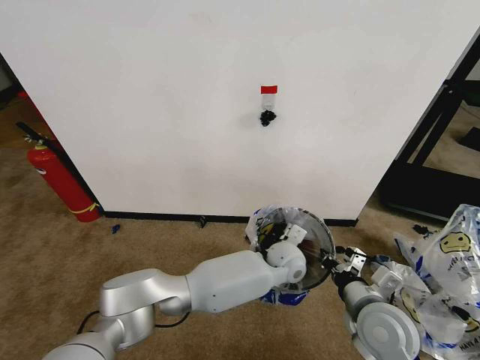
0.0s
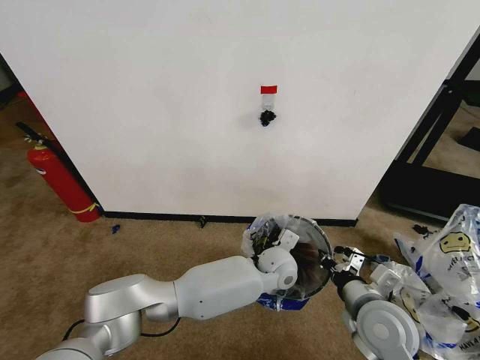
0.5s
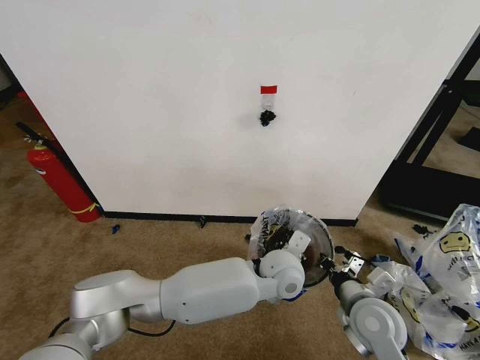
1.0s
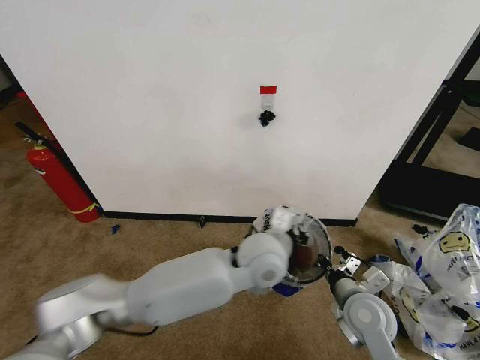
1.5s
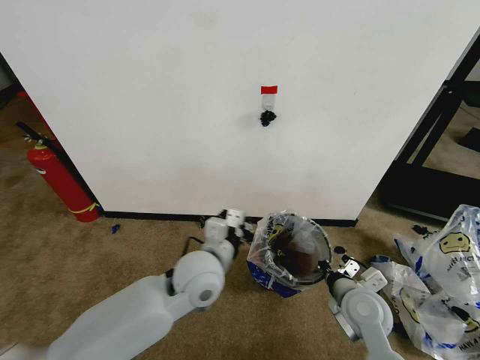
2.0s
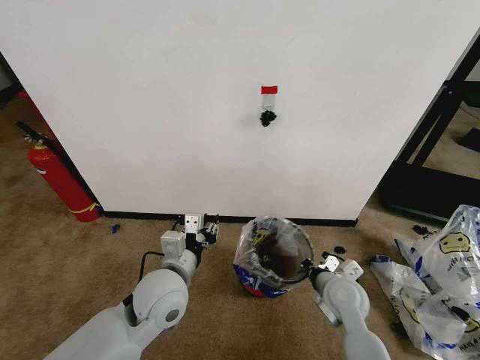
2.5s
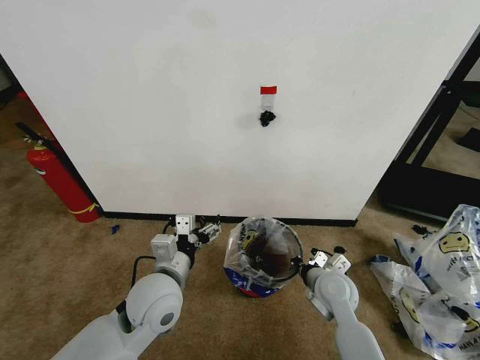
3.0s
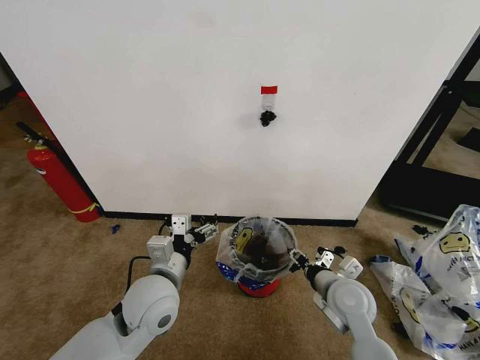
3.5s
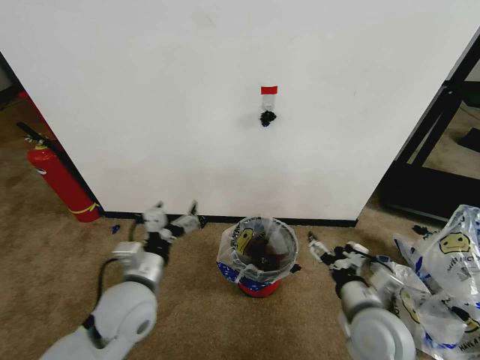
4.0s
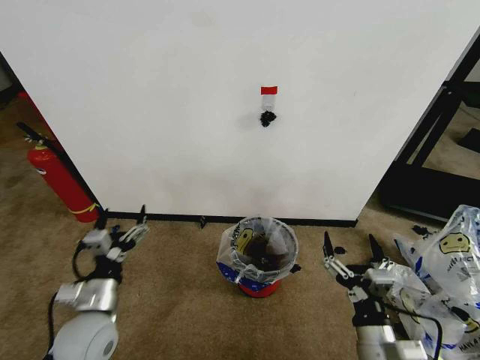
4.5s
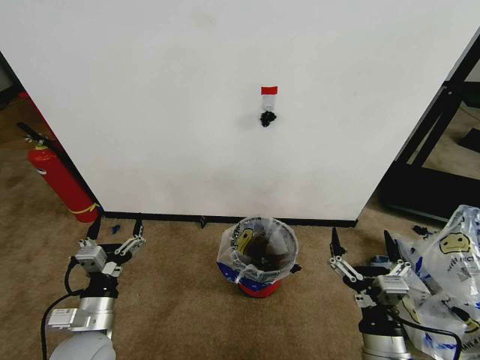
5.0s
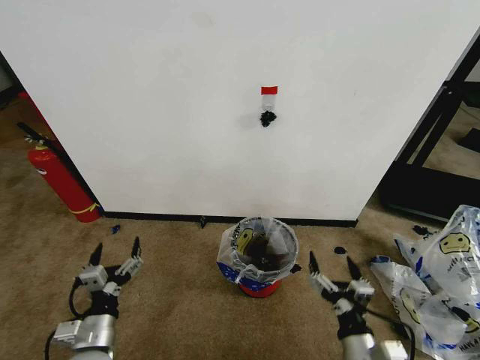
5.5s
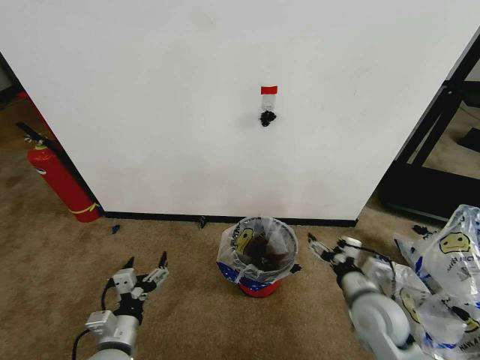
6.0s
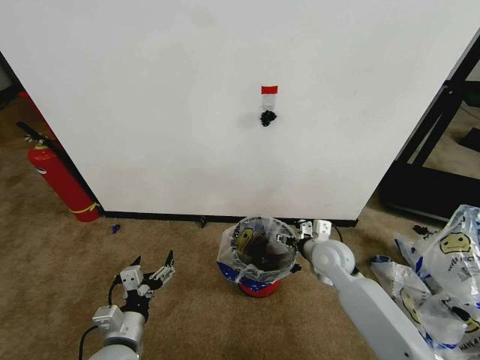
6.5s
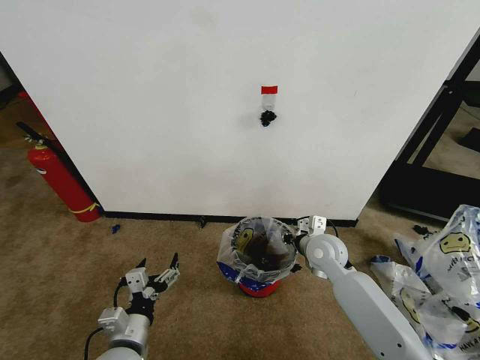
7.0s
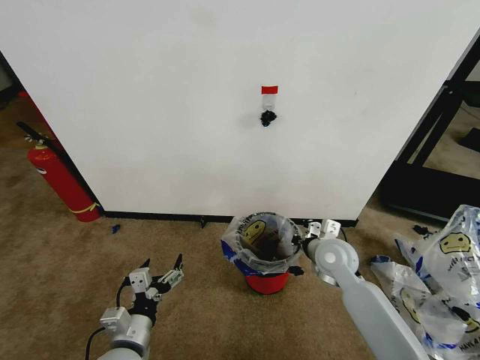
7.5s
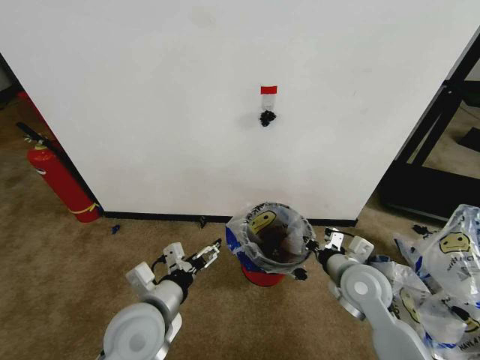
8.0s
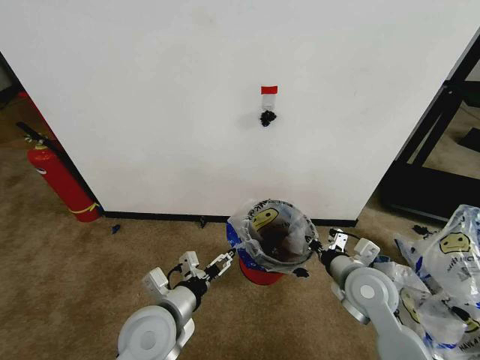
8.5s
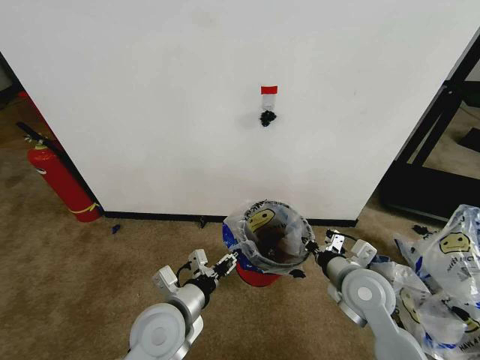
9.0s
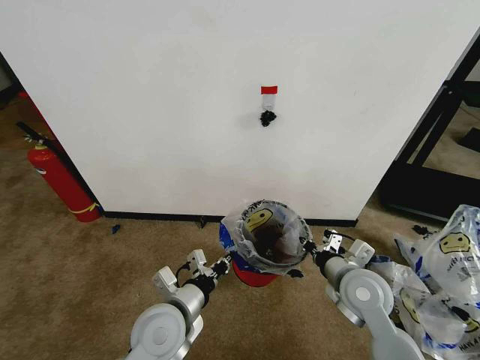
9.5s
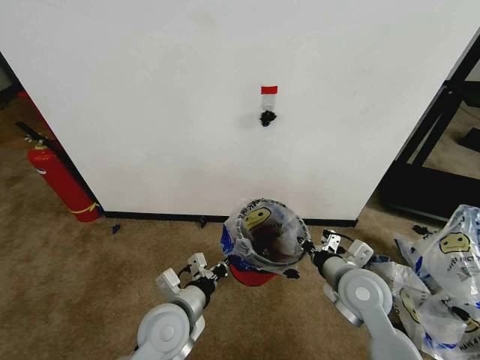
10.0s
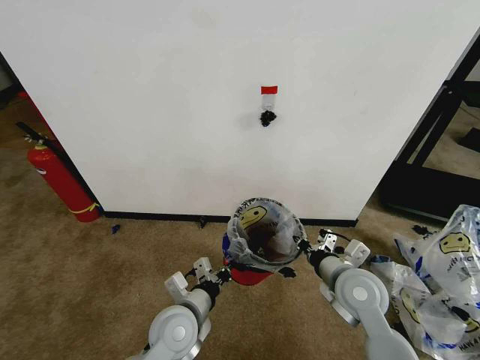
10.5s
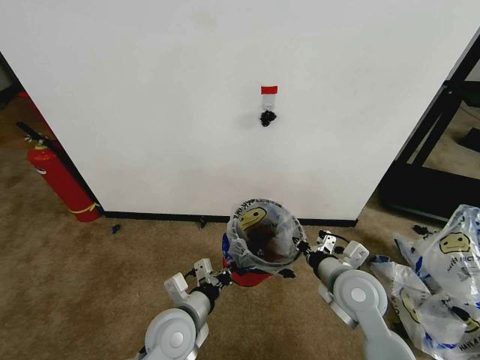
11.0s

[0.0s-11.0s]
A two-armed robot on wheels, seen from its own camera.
Task of the whole recording: Pick up the garbage bag from the wall and place it over the trash bin.
0.0s to 2.0s: The left gripper shifts approximately 25 cm to the left, upward and backward. Meanwhile the right gripper shifts by about 5 cm.
2.0s to 3.5s: The right gripper opens up; the left gripper shifts about 10 cm to the left, and opens up.
3.5s to 5.5s: The right gripper moves backward, approximately 15 cm, and opens its fingers. Meanwhile the left gripper moves to the left, downward and backward, some 20 cm.
5.5s to 7.5s: The right gripper moves forward, roughly 25 cm, and closes up, while the left gripper is displaced to the right by about 5 cm.
7.5s to 9.0s: The right gripper moves backward, about 10 cm; the left gripper goes some 10 cm to the right, upward and forward, and closes its fingers.
9.0s to 11.0s: The left gripper closes.

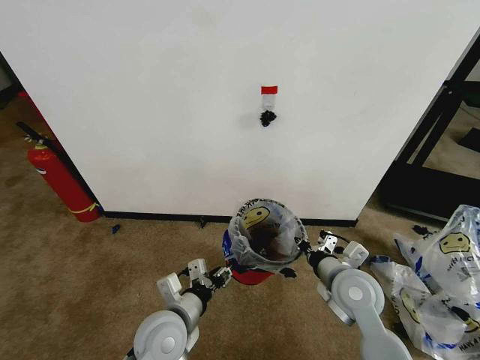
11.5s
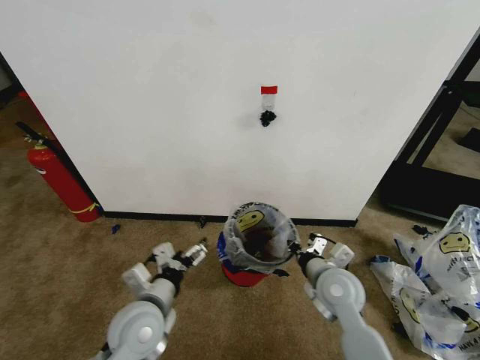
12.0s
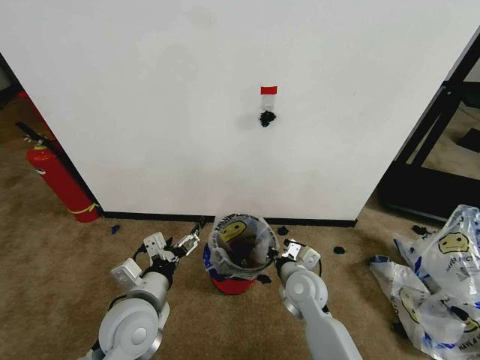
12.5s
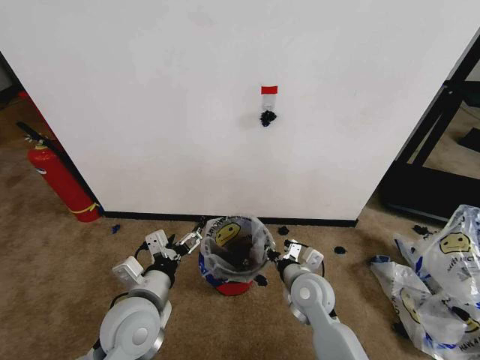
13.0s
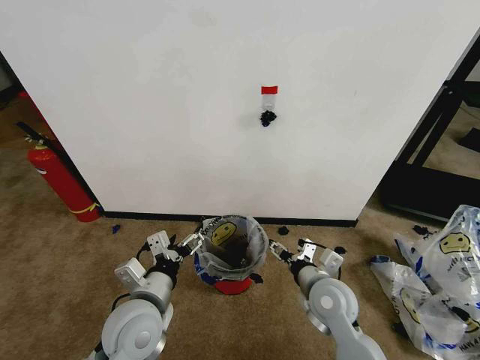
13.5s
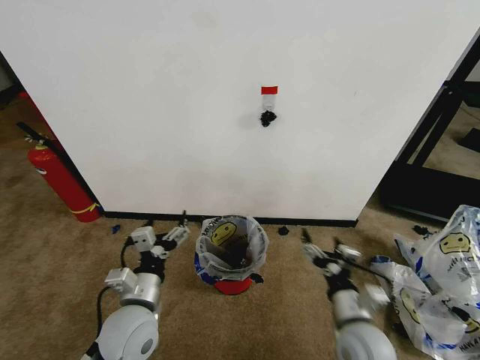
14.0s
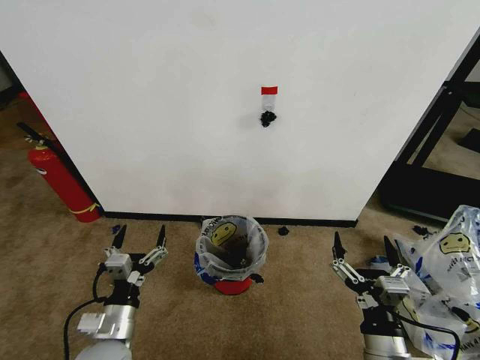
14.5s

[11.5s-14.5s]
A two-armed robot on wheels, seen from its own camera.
Task of the whole recording: Pick up the garbage bag from the wall and place it over the trash bin.
11.5s to 13.0s: The left gripper shifts roughly 5 cm upward, and opens its fingers. The right gripper goes about 10 cm downward and to the left.
13.0s to 14.5s: The right gripper heads backward, covering roughly 20 cm, and opens. The left gripper heads downward, to the left and backward, covering approximately 10 cm.

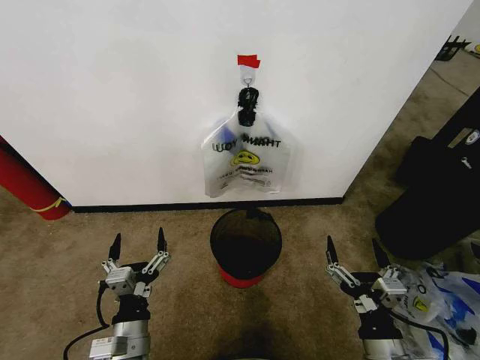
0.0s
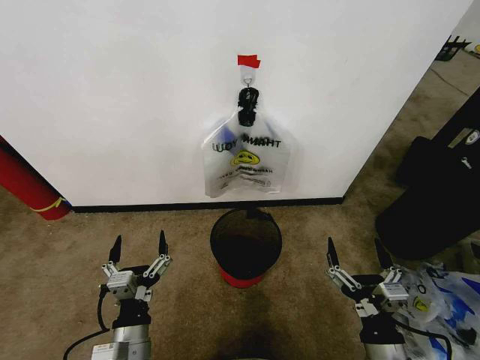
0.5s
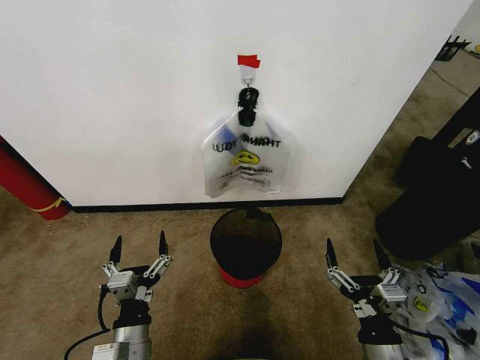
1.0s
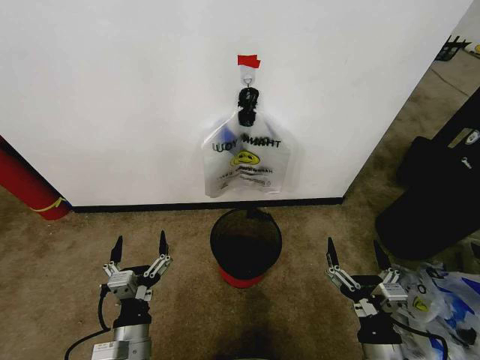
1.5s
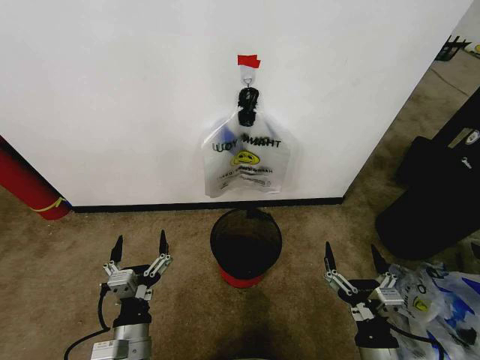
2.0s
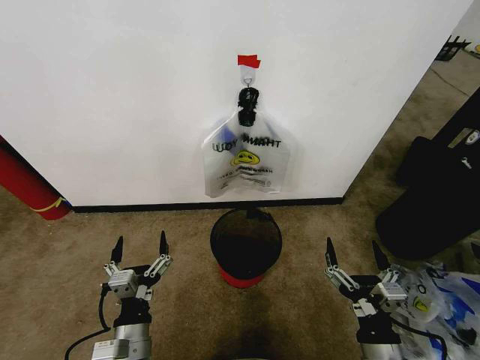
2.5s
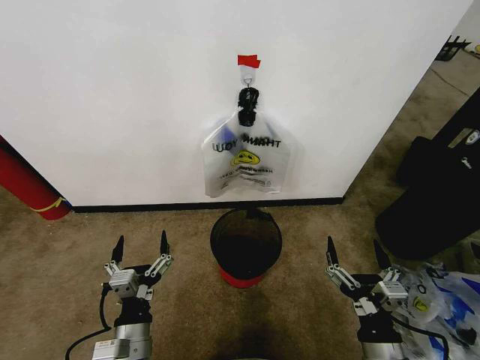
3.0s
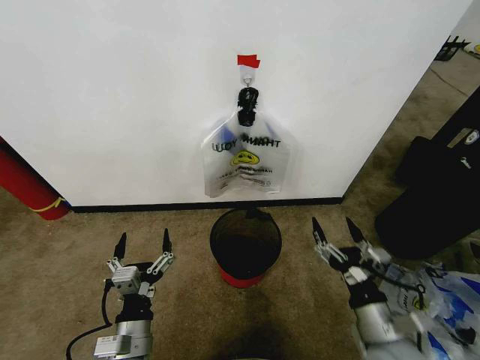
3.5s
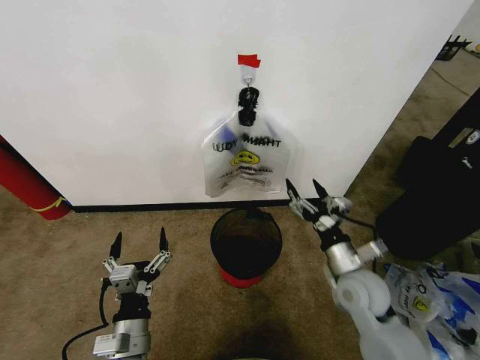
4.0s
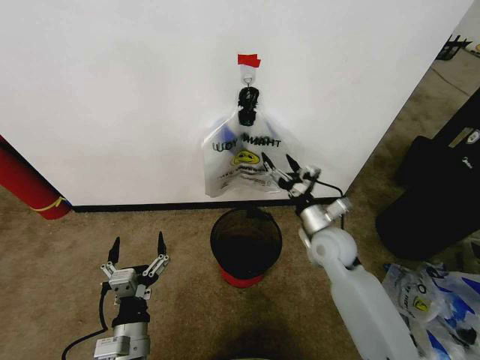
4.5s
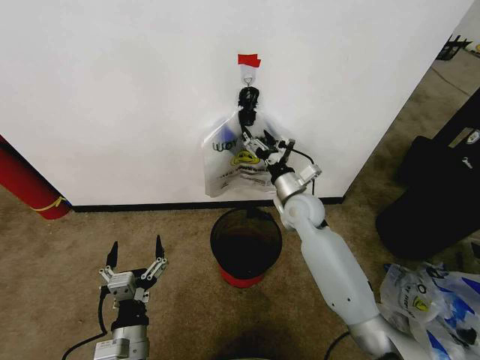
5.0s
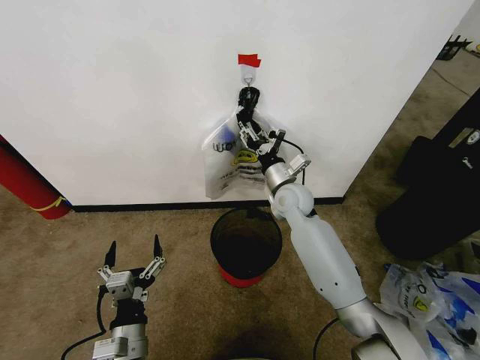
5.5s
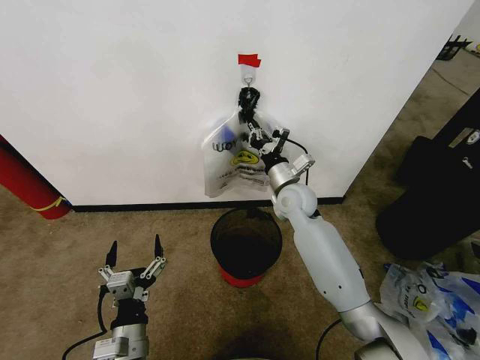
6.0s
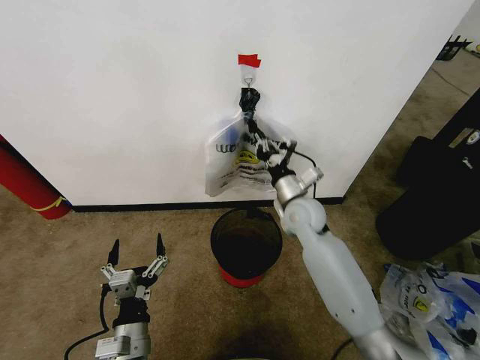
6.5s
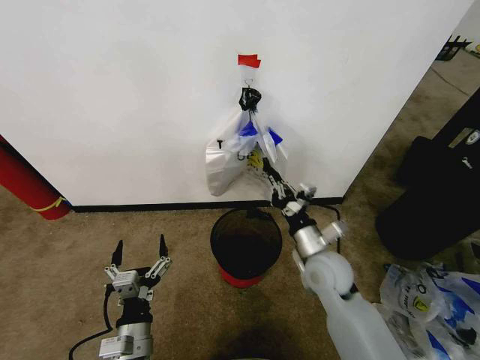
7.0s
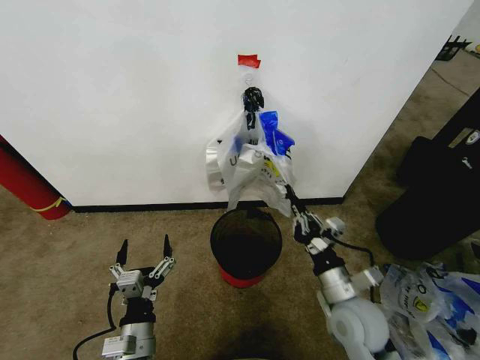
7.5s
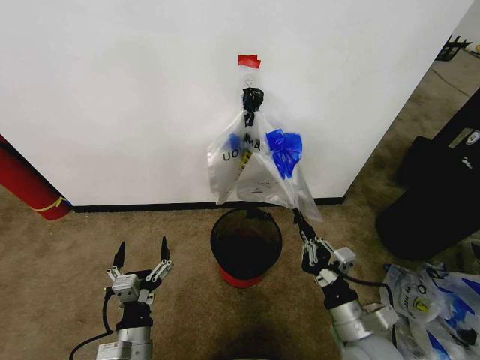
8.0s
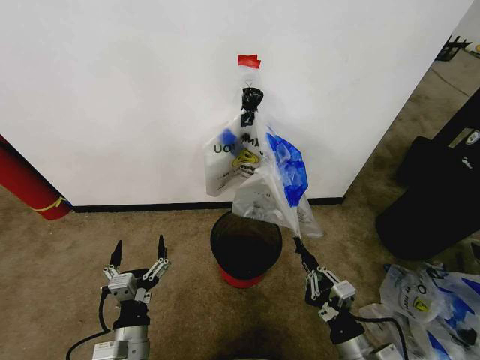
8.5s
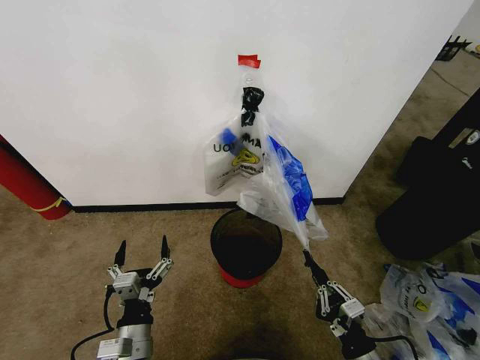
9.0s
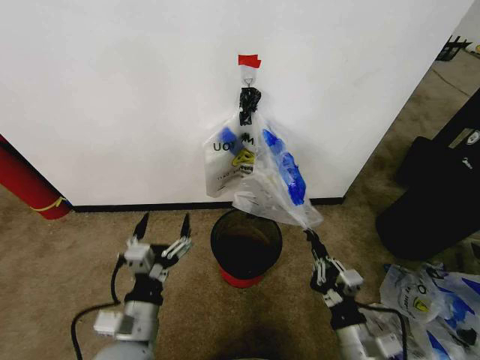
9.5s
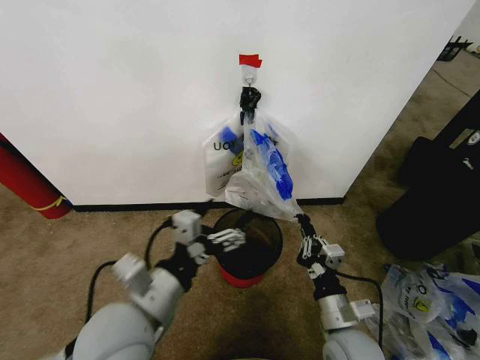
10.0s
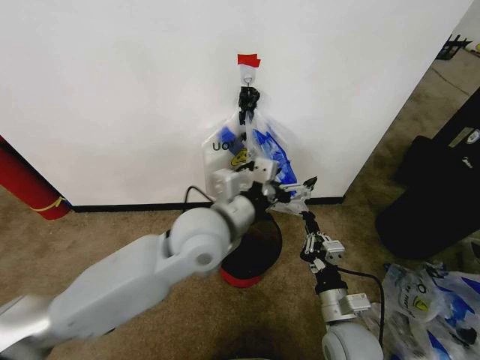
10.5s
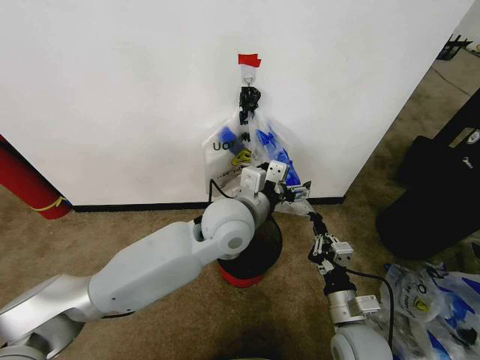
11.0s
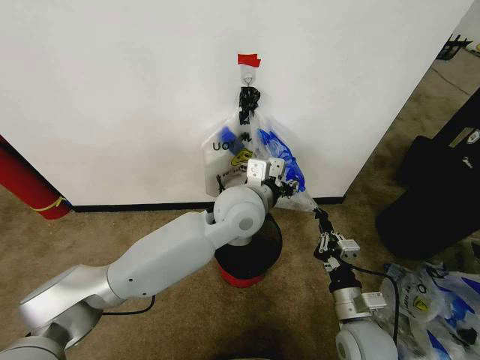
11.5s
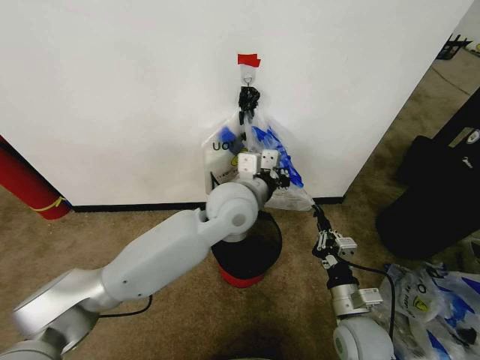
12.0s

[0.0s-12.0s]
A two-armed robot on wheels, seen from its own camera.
Task of the whole recording: Pick up the garbage bag from the wall and place it over the trash bin.
2.0s to 4.0s: The right gripper travels forward by some 20 cm.
4.0s to 6.0s: The right gripper shifts approximately 25 cm forward and to the left, and closes up.
6.0s to 8.0s: The right gripper moves backward, about 30 cm.
8.0s to 10.0s: The right gripper travels backward and back again, approximately 5 cm each way, while the left gripper goes some 20 cm upward.
10.0s to 12.0s: The left gripper travels forward and to the right by roughly 25 cm, and closes its fingers.
